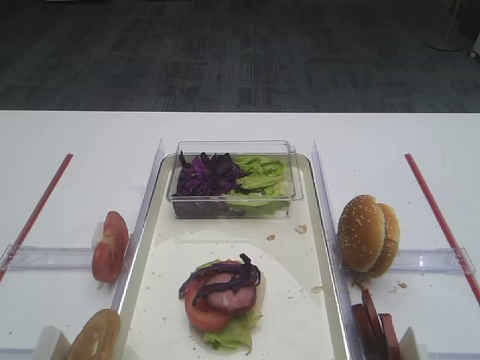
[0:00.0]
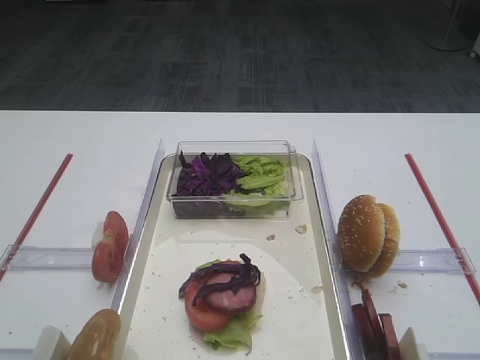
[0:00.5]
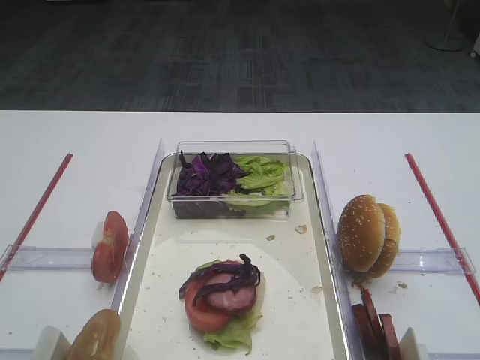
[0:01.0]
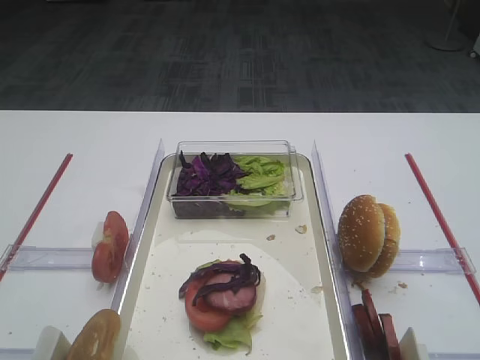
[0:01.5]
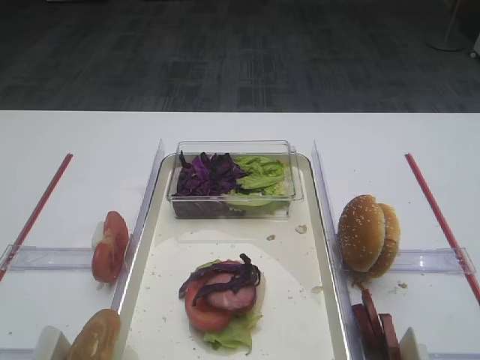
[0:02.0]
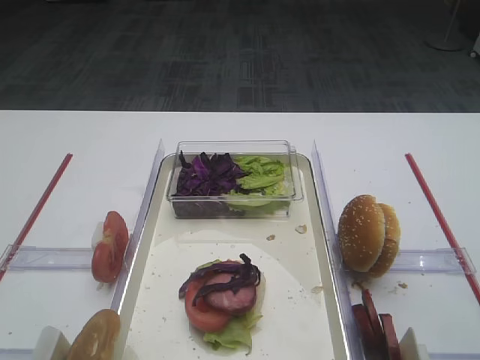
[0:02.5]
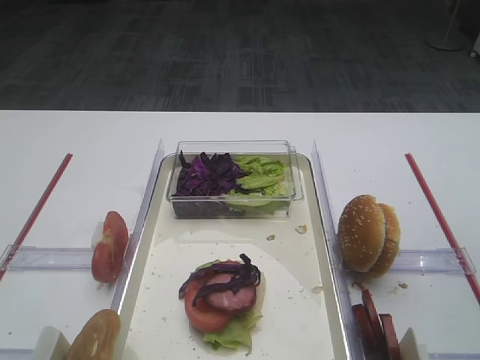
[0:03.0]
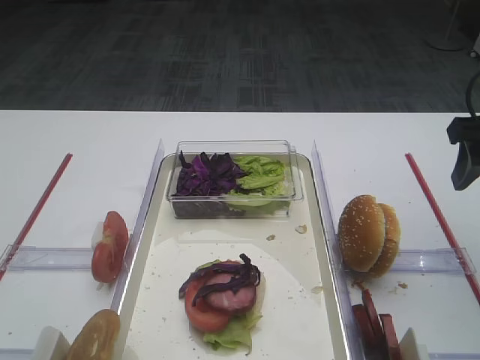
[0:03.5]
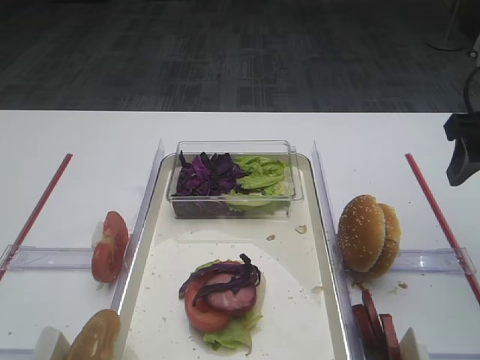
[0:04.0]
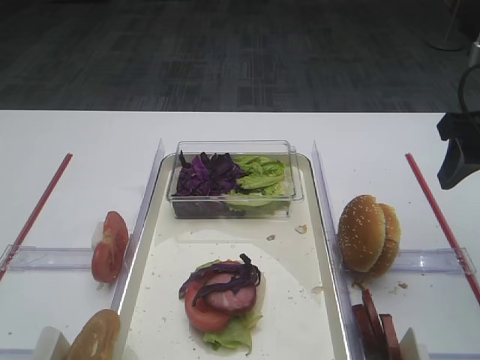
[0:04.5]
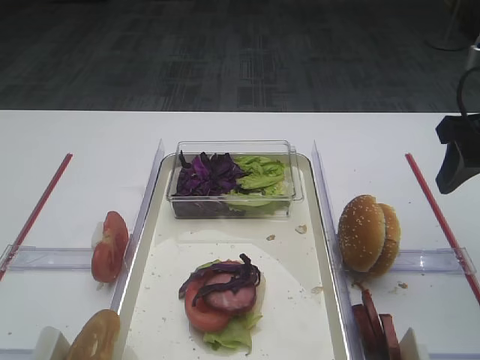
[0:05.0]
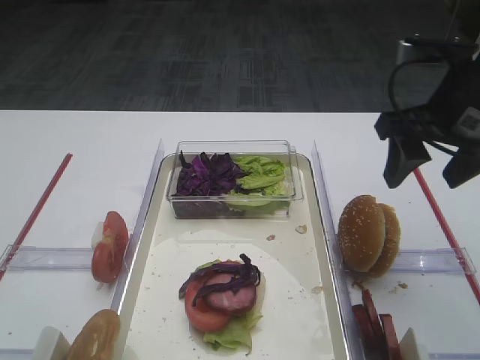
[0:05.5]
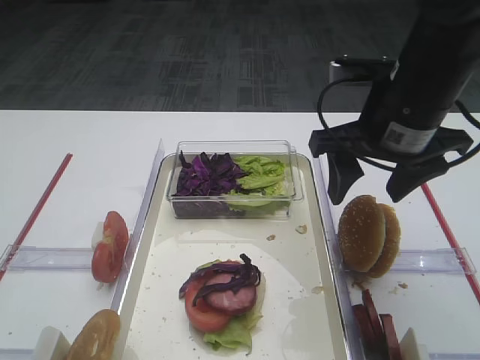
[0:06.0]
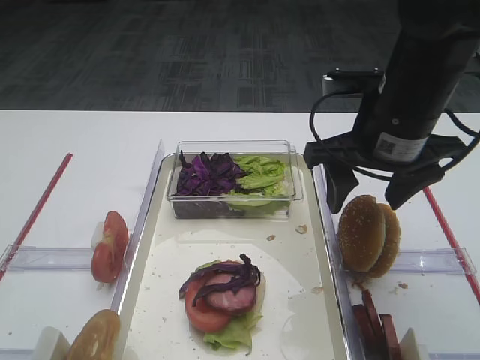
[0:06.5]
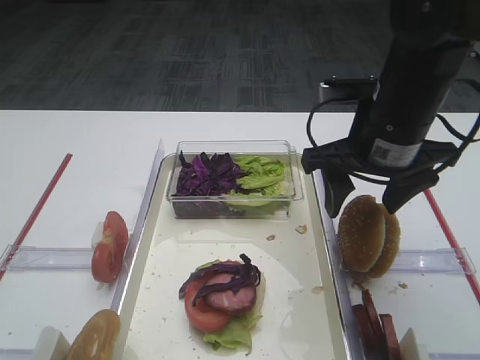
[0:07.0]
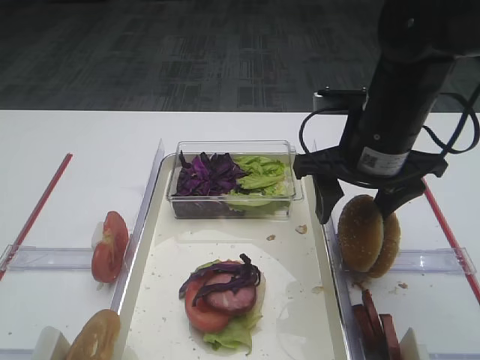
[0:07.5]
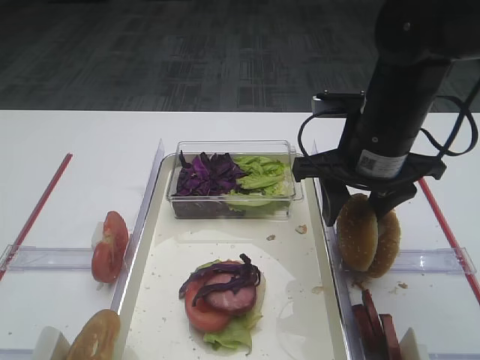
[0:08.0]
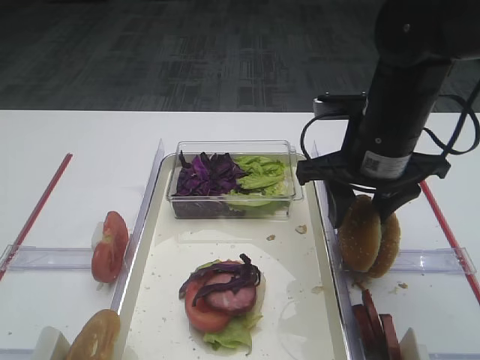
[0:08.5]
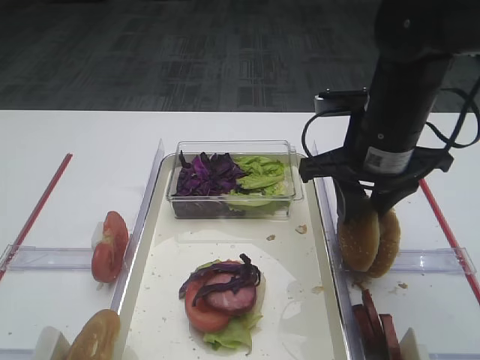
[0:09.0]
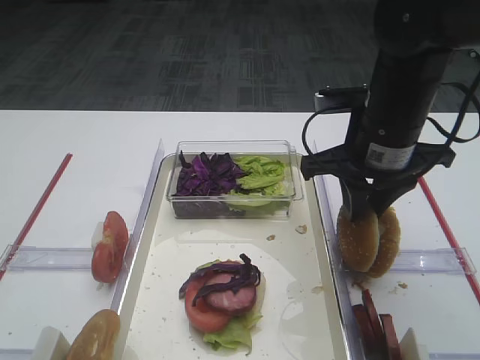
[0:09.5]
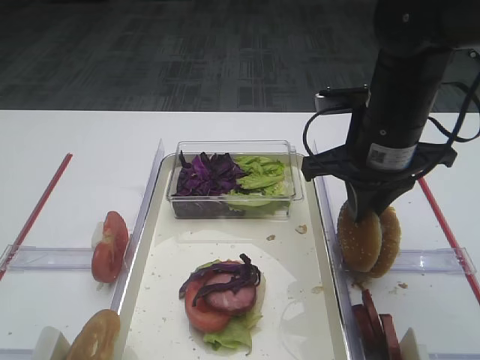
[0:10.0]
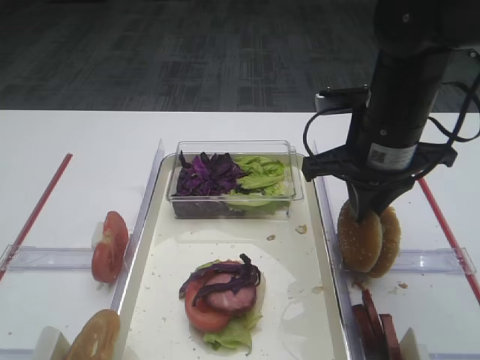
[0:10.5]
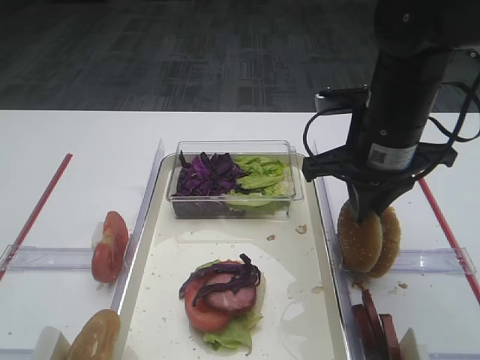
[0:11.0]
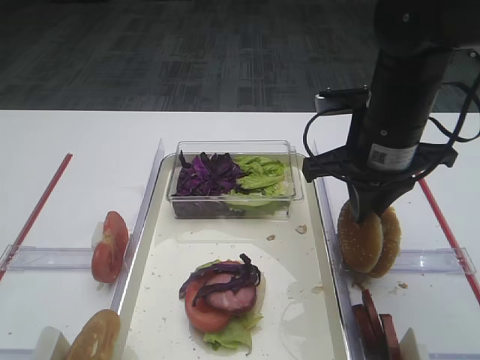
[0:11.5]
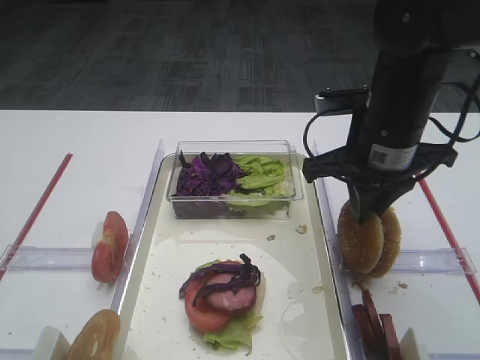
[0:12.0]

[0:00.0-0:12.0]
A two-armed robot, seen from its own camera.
0:02.0 to 0:04.0: The right gripper goes roughly 25 cm forward.
0:04.0 to 0:06.0: The right gripper is displaced to the left by roughly 10 cm.
0:06.0 to 0:08.0: The grippers stay close to where they were, moving slightly.
0:08.0 to 0:10.0: The right gripper closes.
0:10.0 to 0:12.0: The two grippers keep their place.

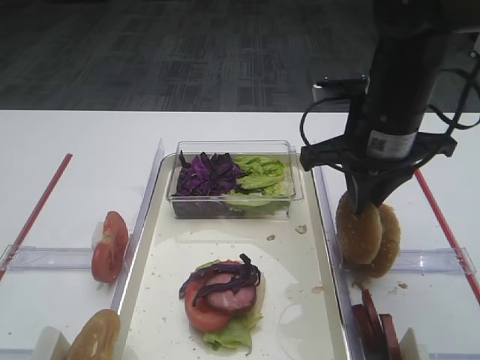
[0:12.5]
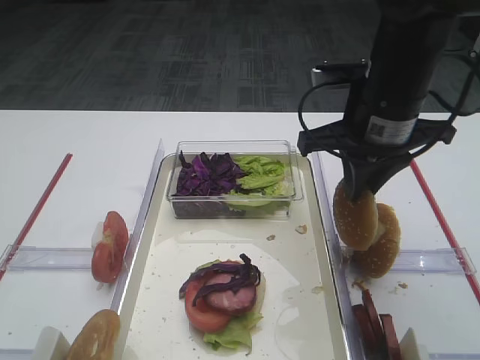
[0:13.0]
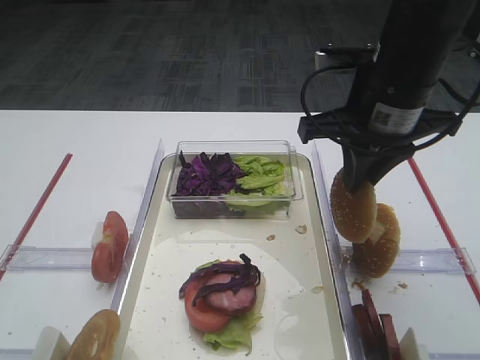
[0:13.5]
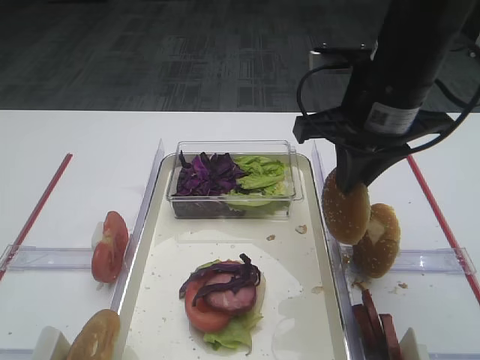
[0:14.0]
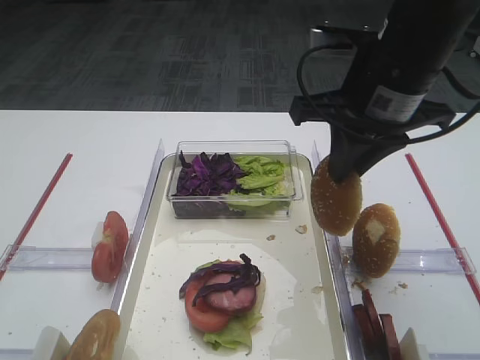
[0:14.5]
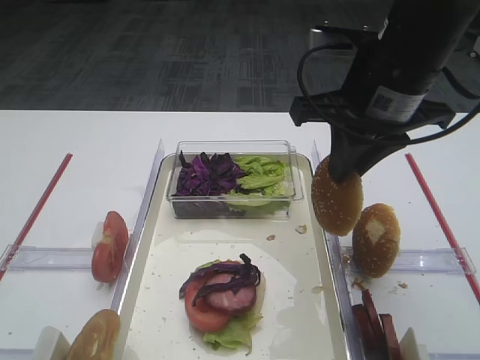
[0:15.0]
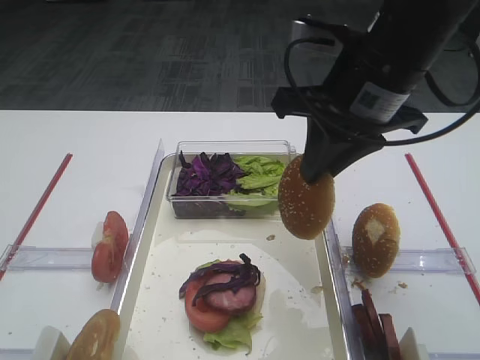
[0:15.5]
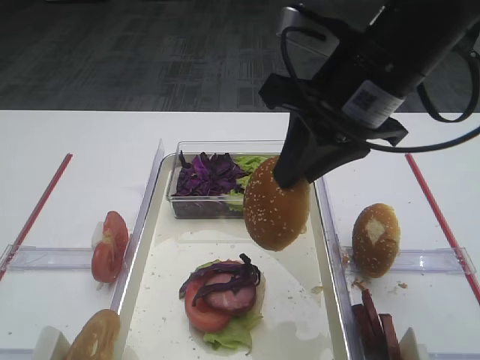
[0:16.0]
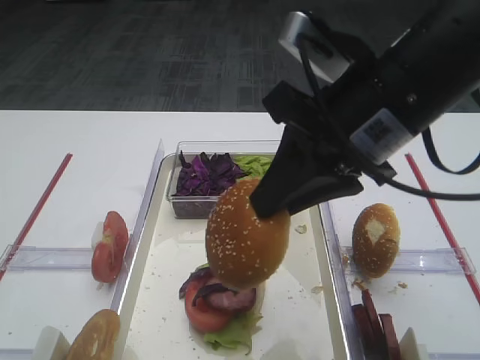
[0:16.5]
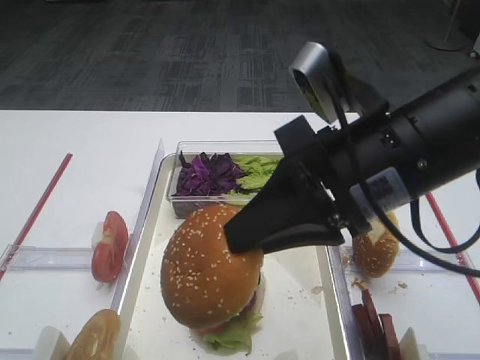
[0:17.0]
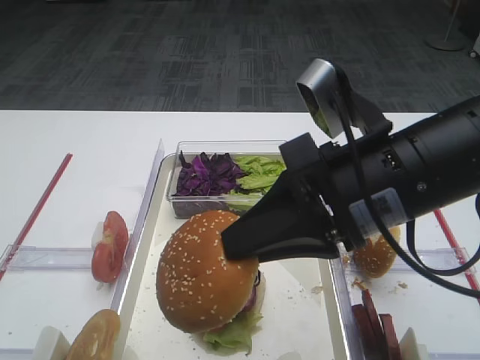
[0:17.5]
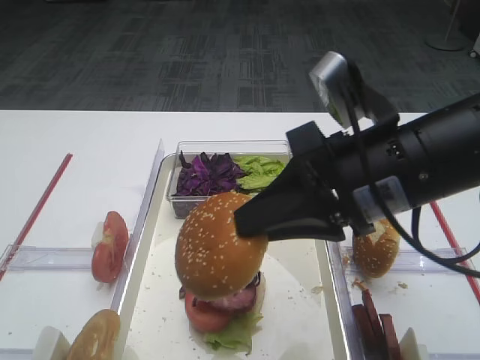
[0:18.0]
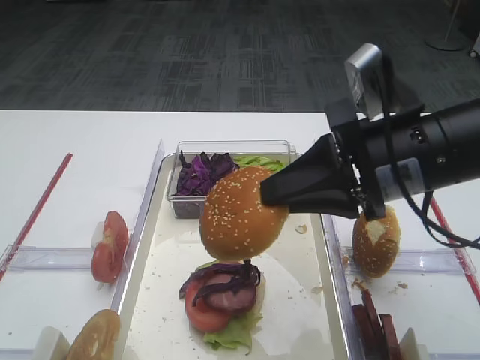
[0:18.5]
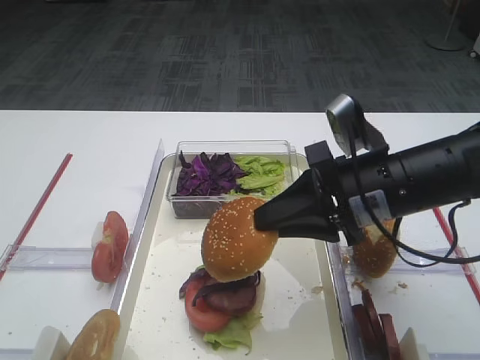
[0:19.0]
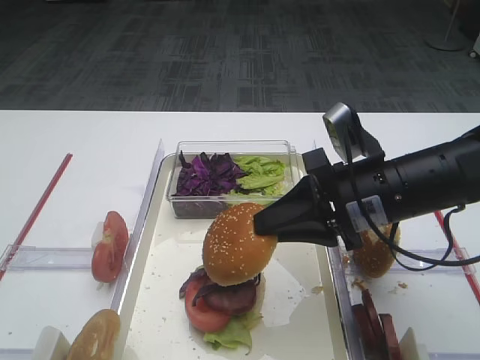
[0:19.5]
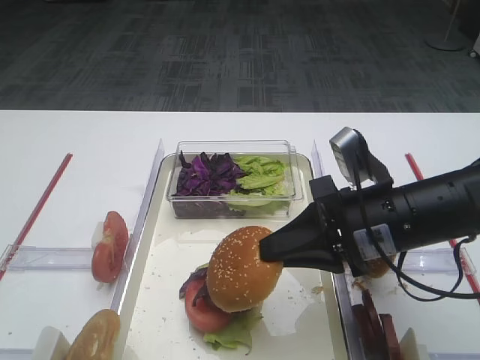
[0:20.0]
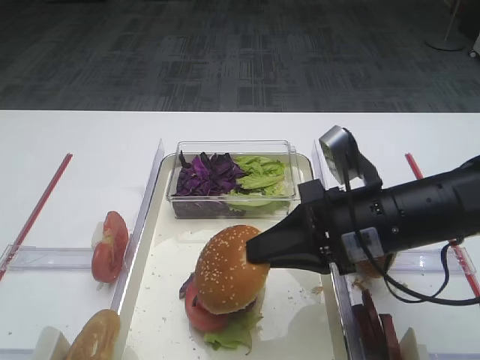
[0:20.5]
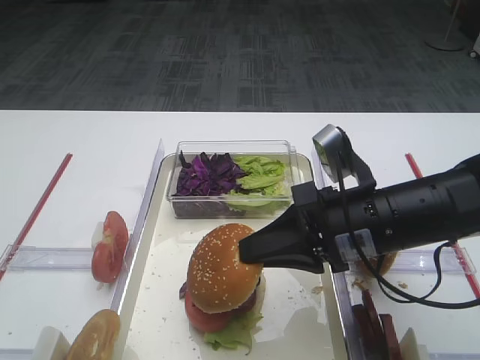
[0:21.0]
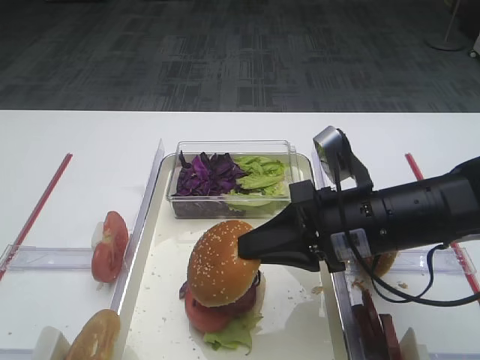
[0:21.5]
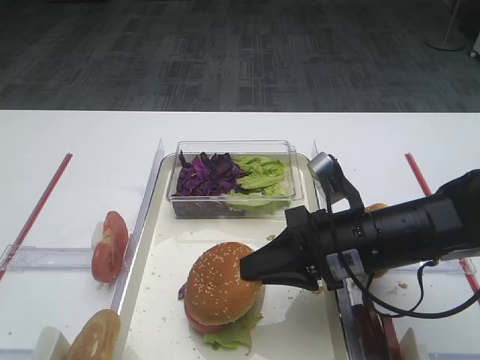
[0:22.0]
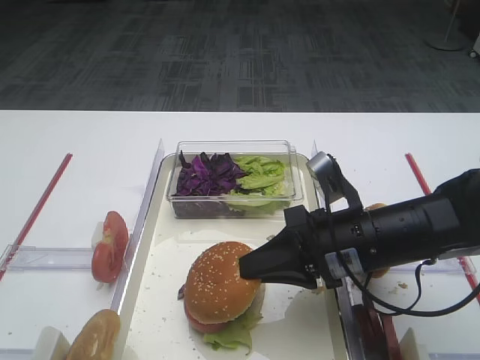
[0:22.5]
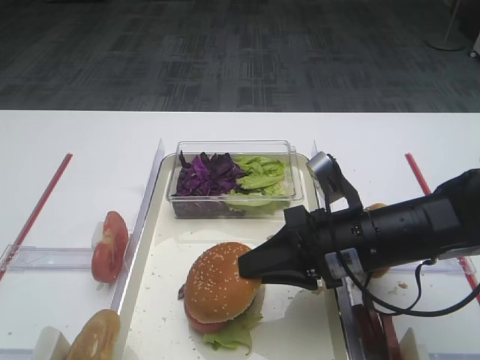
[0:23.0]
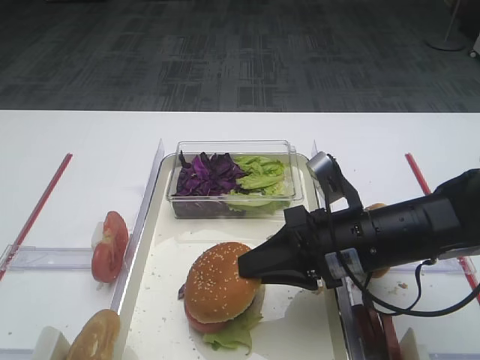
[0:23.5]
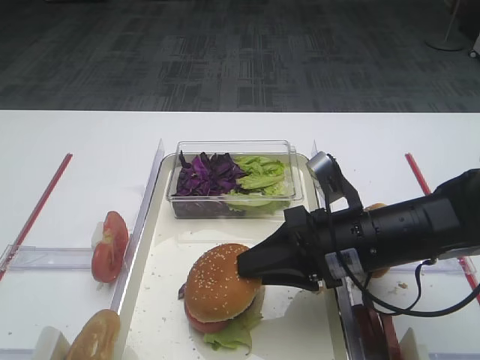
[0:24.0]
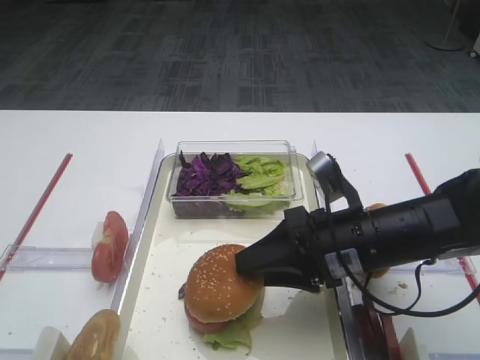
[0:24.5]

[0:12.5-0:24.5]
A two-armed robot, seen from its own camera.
Step, 0:12.5 to 0:15.0: Pick up the hamburger lid with the right gripper.
0:12.5 to 0:14.5: The right gripper shifts approximately 5 cm upward.
0:14.5 to 0:16.5: The right gripper is displaced backward by some 5 cm.
0:16.5 to 0:18.5: The right gripper heads downward, covering some 5 cm.
0:18.5 to 0:20.5: The right gripper heads downward, covering about 10 cm.
0:20.5 to 0:22.5: The grippers stay close to where they were, moving slightly.
0:22.5 to 0:24.5: The right gripper opens.

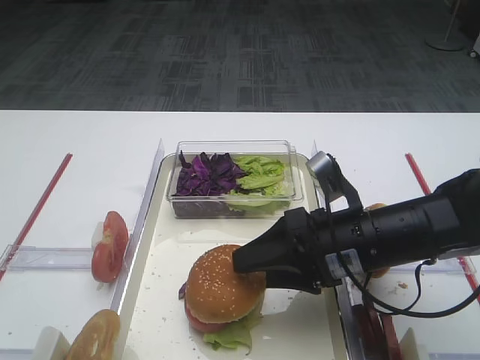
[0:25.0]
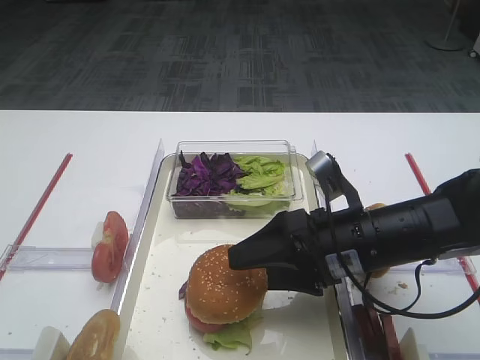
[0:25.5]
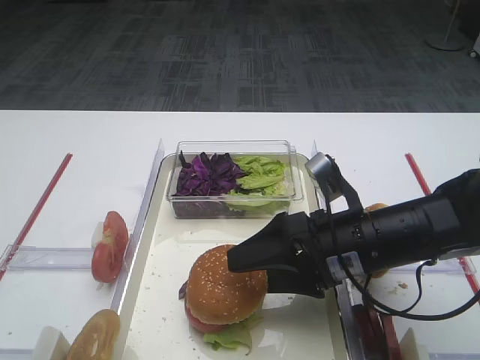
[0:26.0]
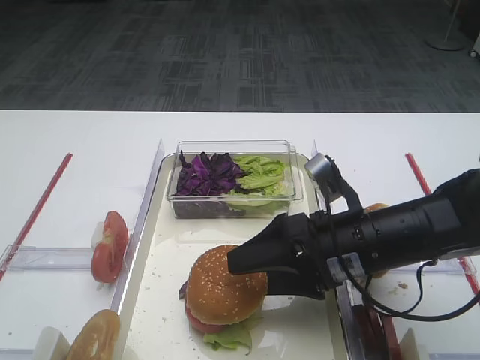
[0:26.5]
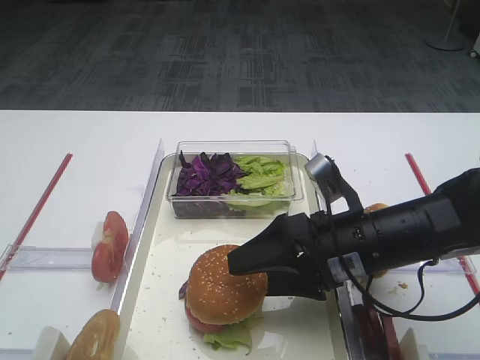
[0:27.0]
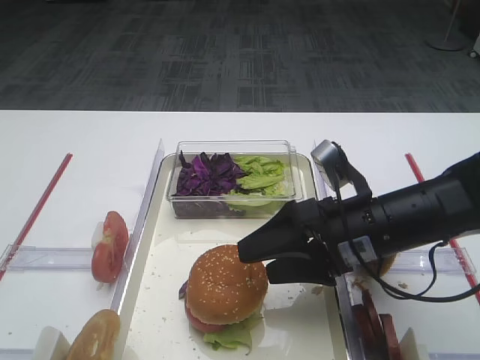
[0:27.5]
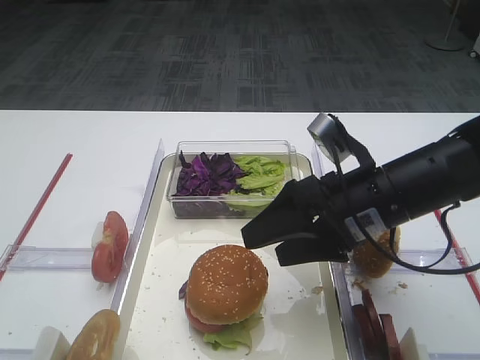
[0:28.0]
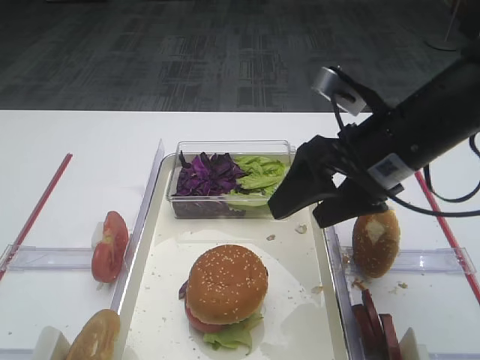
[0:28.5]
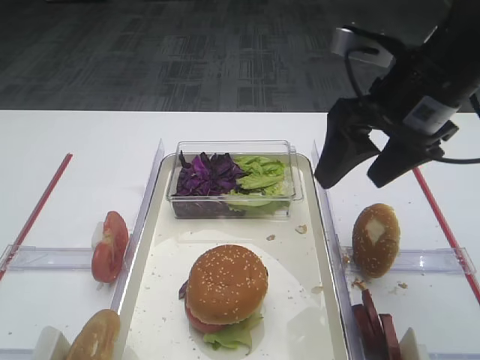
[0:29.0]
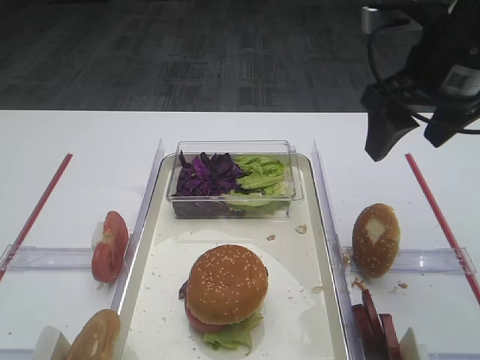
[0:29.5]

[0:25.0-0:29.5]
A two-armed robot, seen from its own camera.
Step, 0:25.0 to 0:28.5: Place the hamburger lid on the purple cabbage with the right gripper.
0:25.0 to 0:27.0: The right gripper opens its fingers.
0:27.0 to 0:29.5: The right gripper heads upward, covering about 20 cm.
